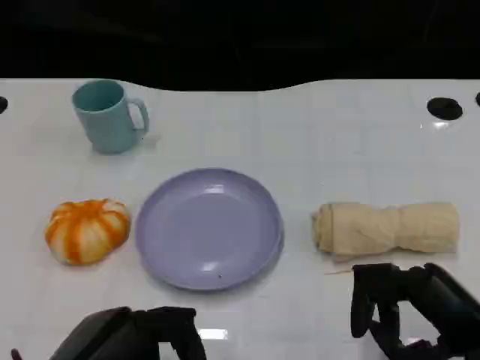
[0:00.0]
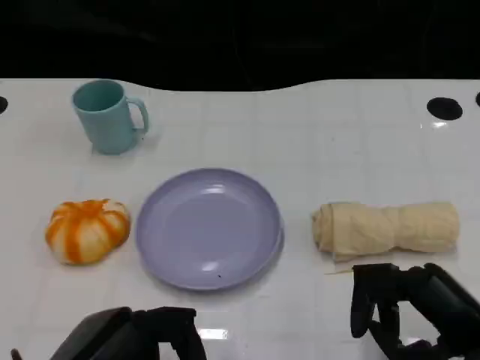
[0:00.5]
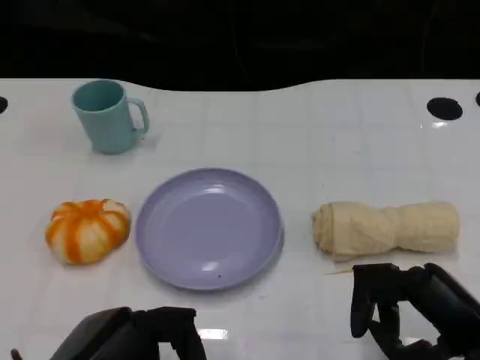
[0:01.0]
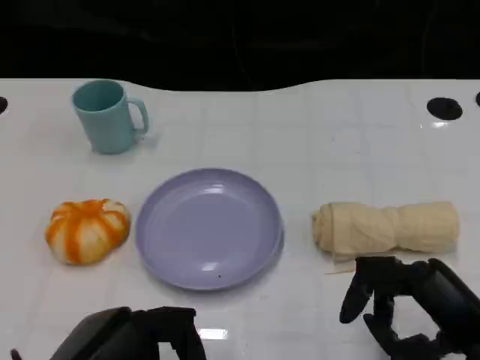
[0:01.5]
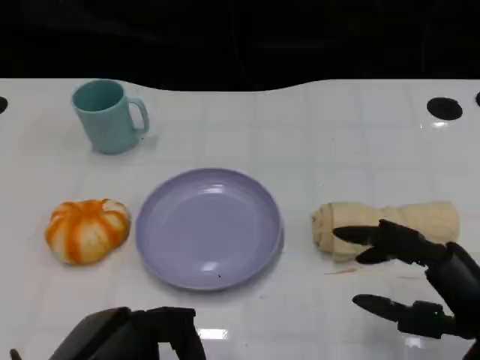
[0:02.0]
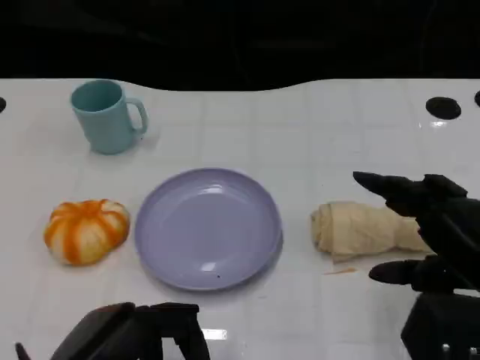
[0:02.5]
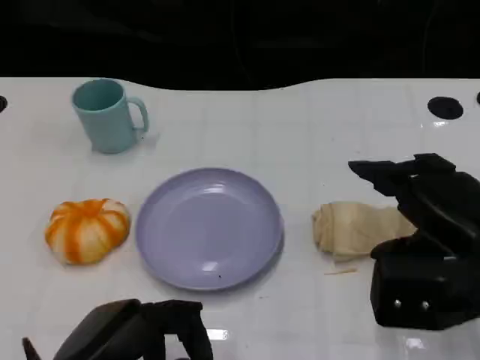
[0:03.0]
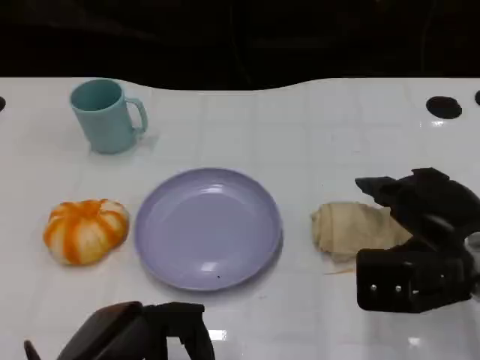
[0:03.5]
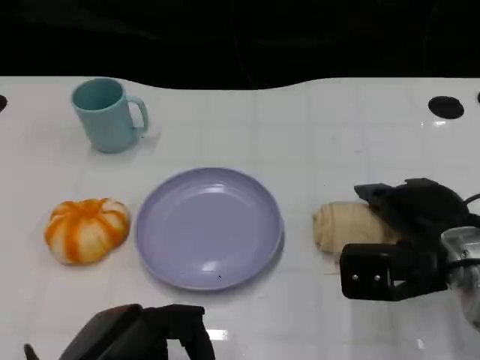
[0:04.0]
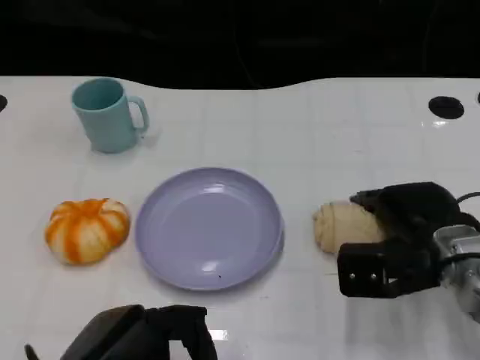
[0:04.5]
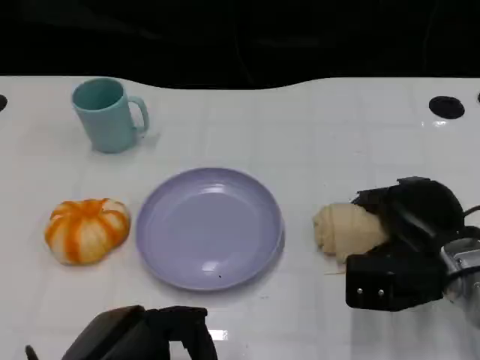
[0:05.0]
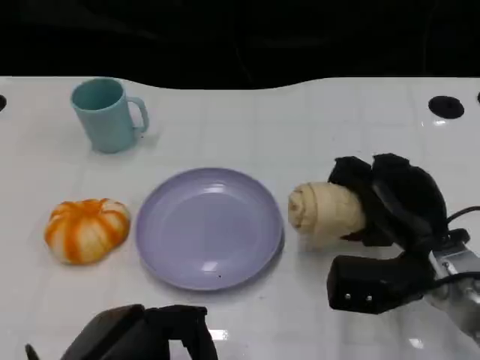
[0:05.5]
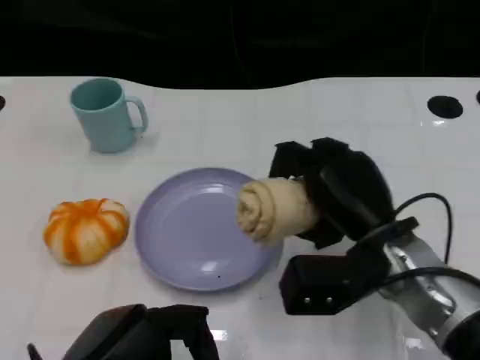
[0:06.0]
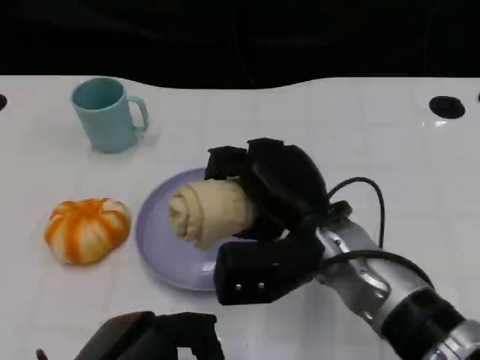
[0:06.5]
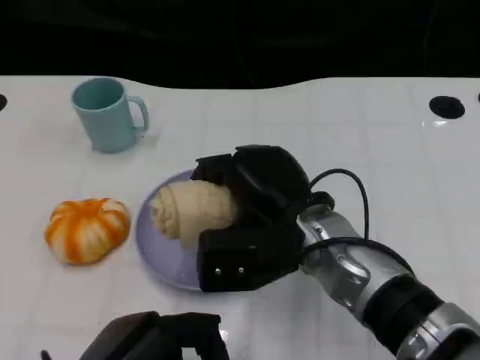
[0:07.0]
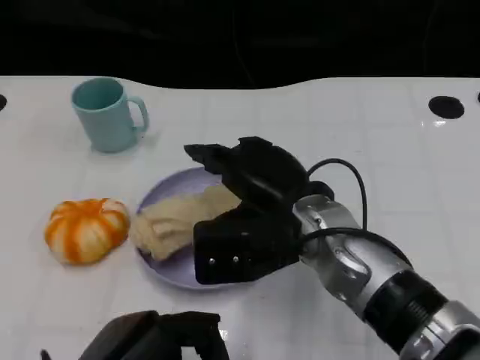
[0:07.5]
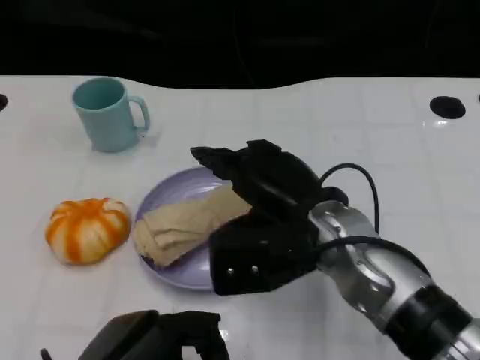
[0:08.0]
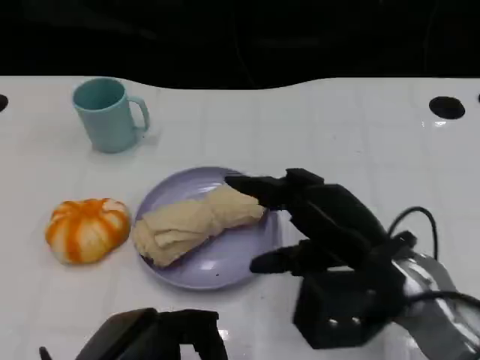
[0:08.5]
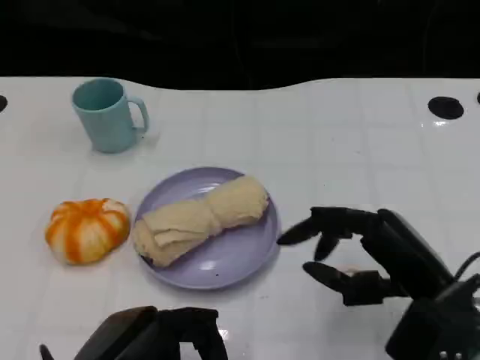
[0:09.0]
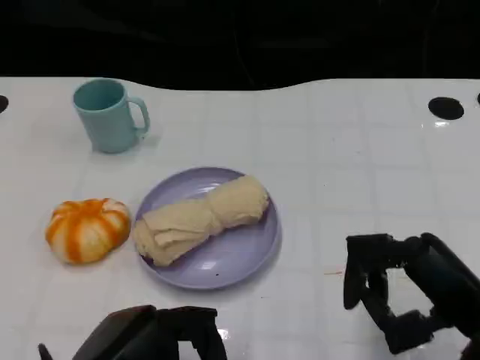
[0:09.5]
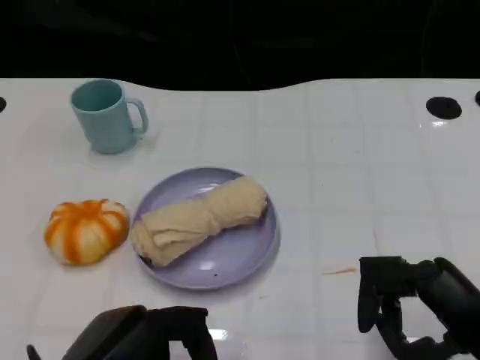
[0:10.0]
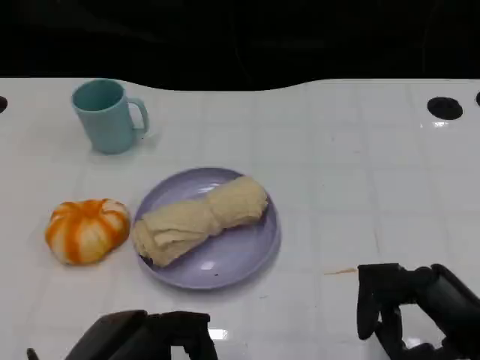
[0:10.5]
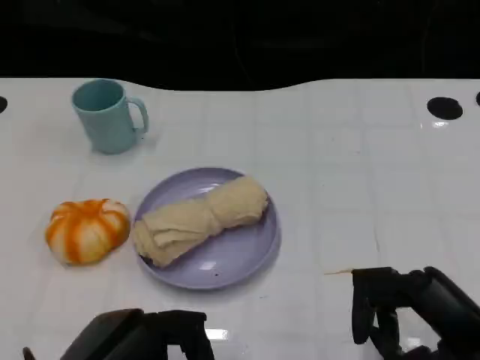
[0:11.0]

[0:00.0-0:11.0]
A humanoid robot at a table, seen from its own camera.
Task of the whole recording: Grasp the towel on the left side of the plate with the left hand and place it into the plate.
0.0 to 2.0 s: There are only small adjustments of the hands.
2.0 to 3.5 s: The right hand shifts approximately 10 cm forward.
3.5 to 5.5 s: The right hand shifts by some 5 cm.
5.5 to 7.5 s: The right hand moves to the left and upward, about 15 cm.
7.5 to 9.0 s: The right hand goes some 15 cm to the right and backward.
9.0 to 11.0 s: The right hand shifts approximately 5 cm backward.

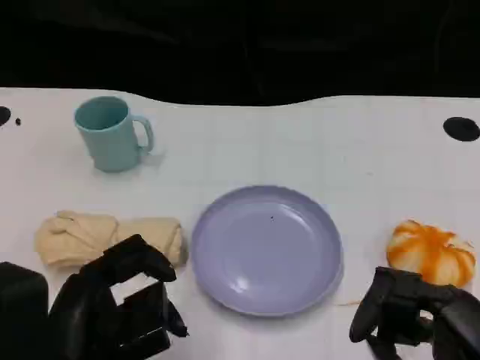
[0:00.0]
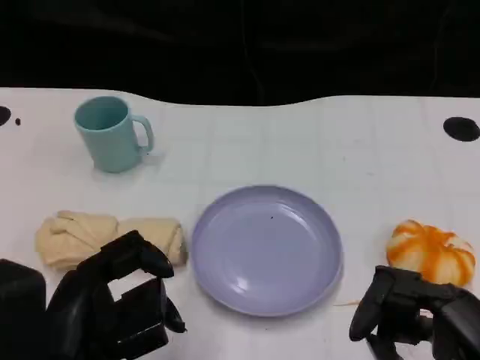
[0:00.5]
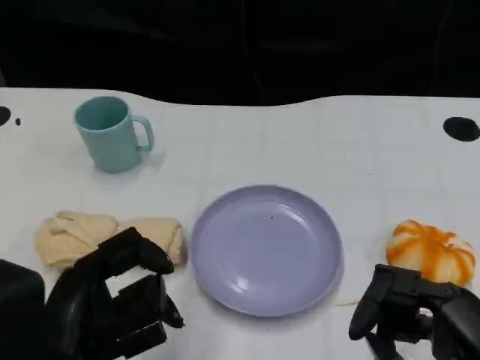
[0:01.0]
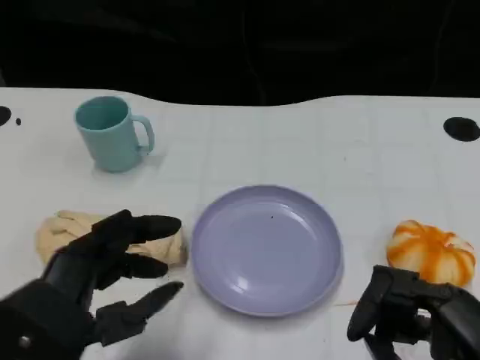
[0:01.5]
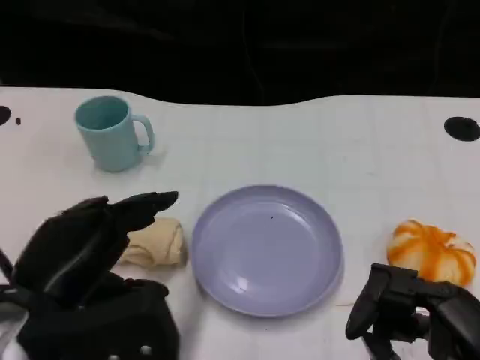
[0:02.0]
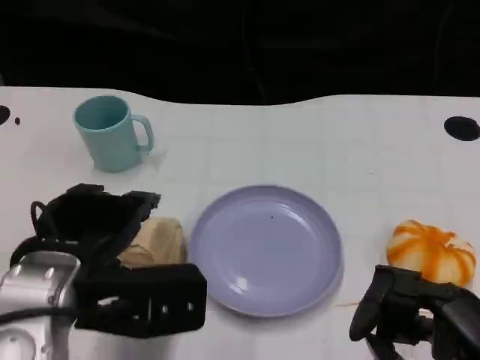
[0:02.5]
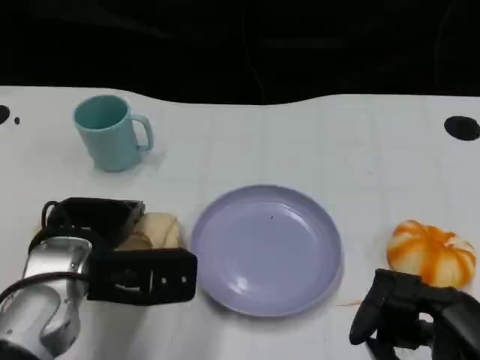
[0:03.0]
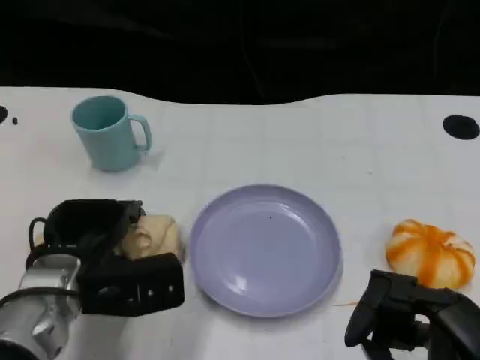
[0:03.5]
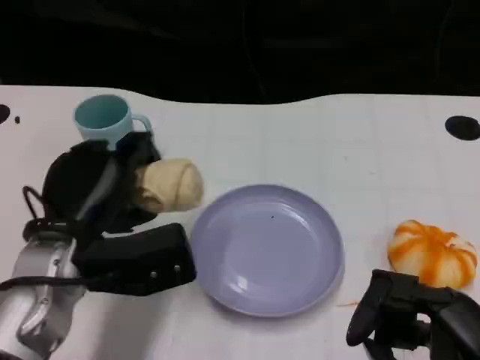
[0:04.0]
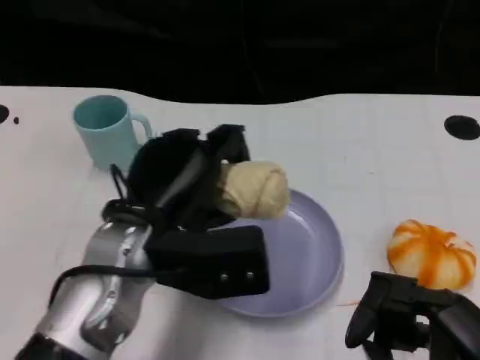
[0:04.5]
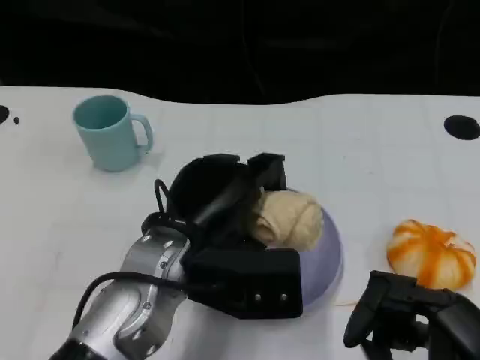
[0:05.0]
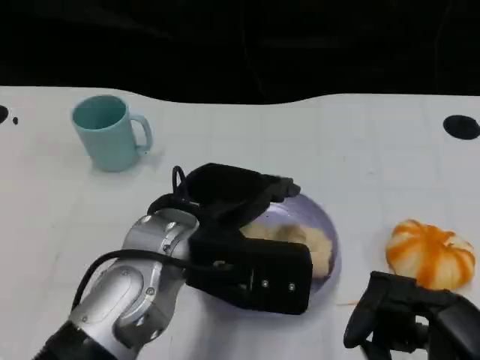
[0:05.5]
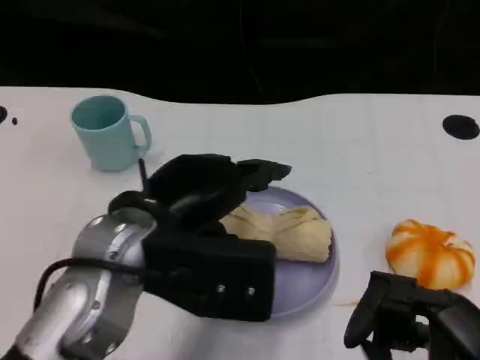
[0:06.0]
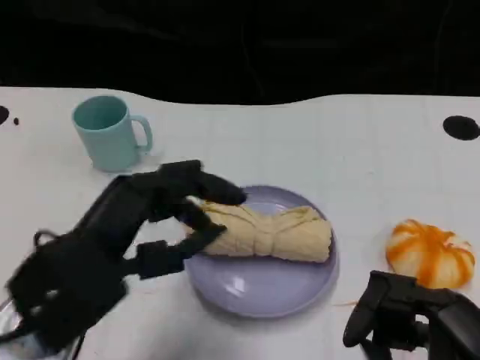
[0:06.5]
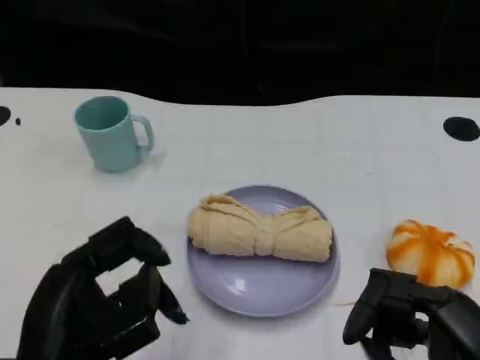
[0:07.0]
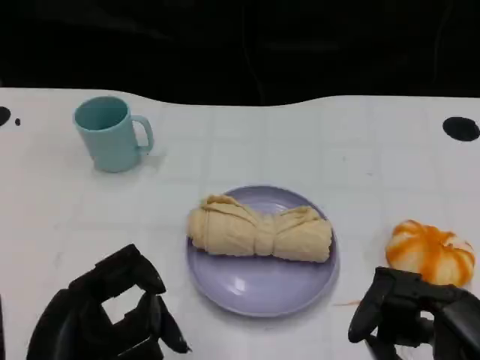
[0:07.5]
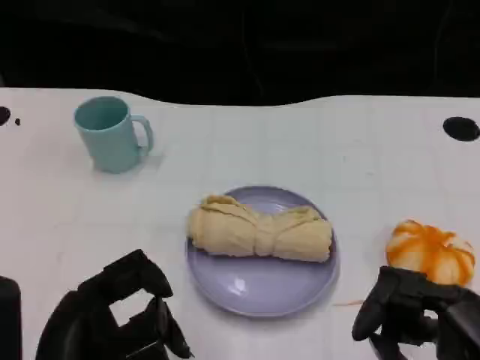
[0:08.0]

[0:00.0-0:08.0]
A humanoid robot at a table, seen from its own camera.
Task of the whole recording: Grasp the towel on the left side of the plate with the left hand and place it into the plate.
0.0 to 2.0 s: The left hand ends up roughly 5 cm from where it was.
2.0 to 4.0 s: The left hand travels forward by approximately 10 cm.
4.0 to 6.0 s: The left hand heads upward, covering about 5 cm.
6.0 to 8.0 s: The left hand heads backward and to the left, covering roughly 15 cm.

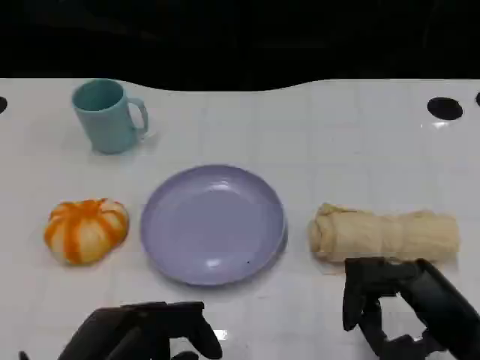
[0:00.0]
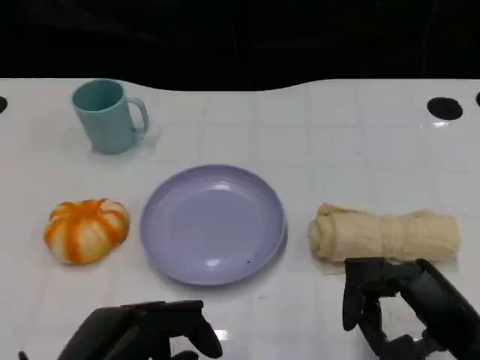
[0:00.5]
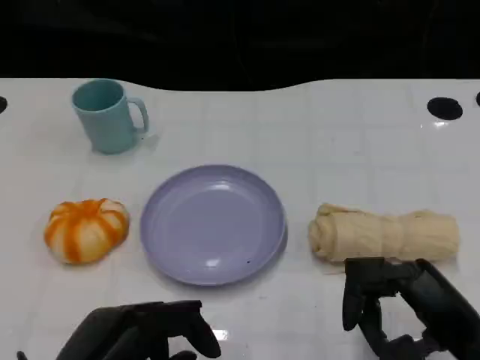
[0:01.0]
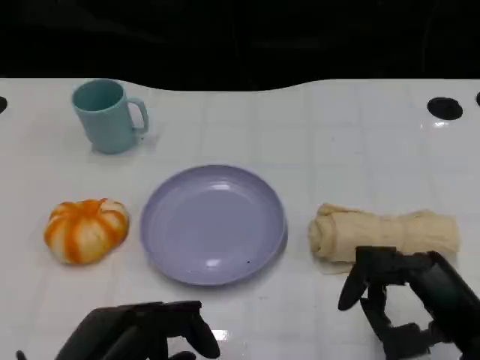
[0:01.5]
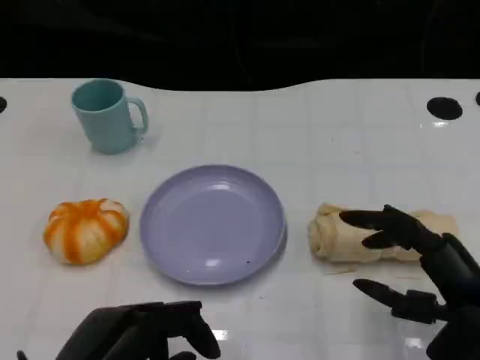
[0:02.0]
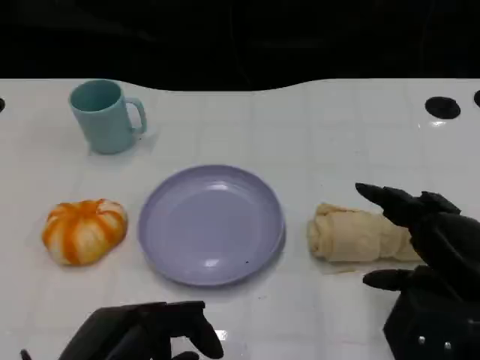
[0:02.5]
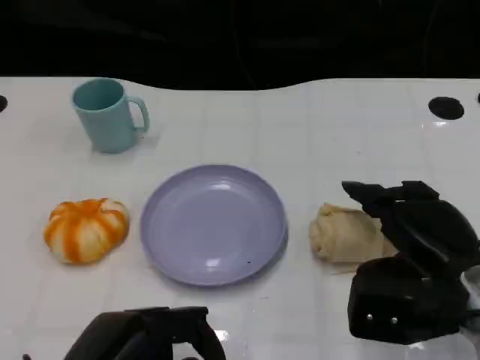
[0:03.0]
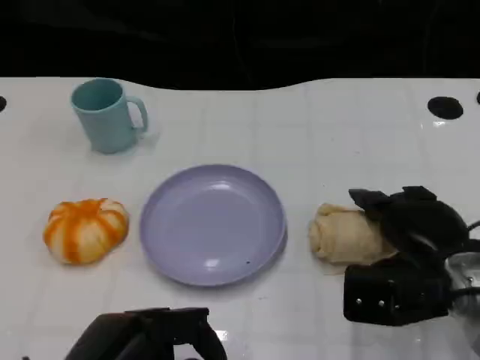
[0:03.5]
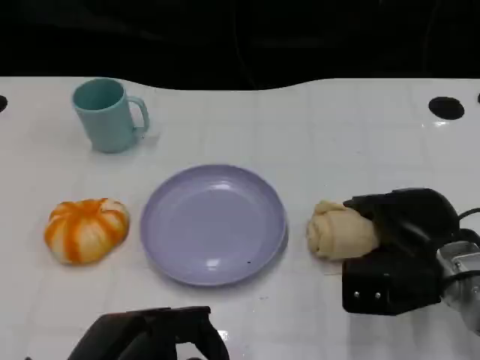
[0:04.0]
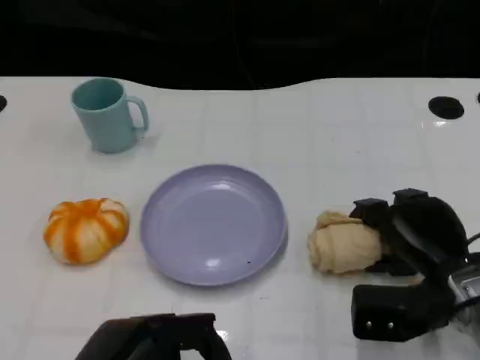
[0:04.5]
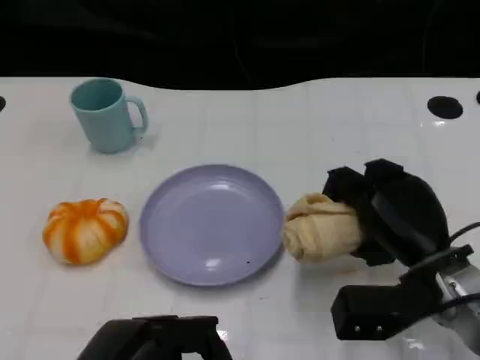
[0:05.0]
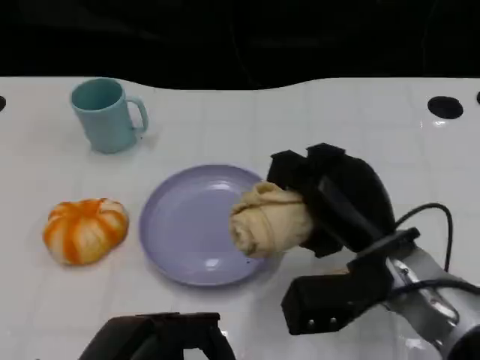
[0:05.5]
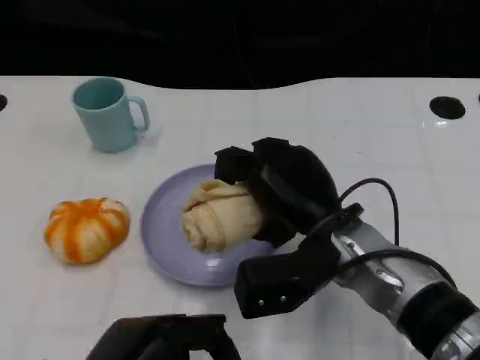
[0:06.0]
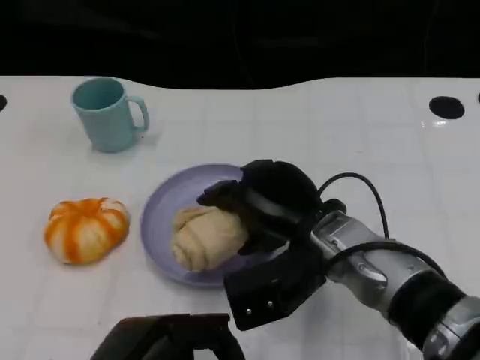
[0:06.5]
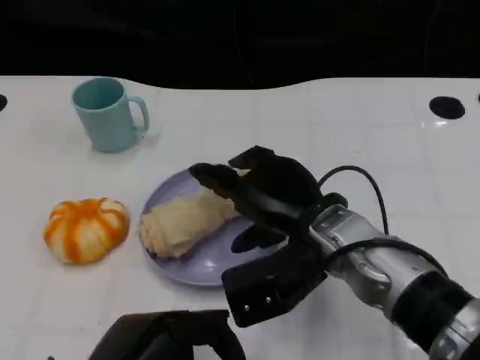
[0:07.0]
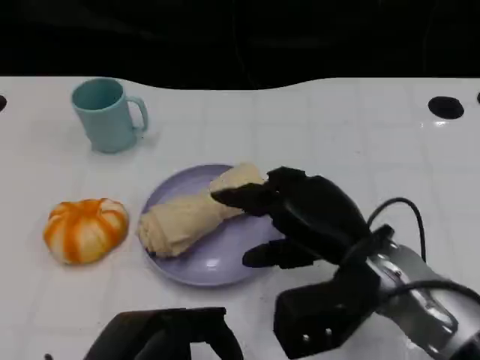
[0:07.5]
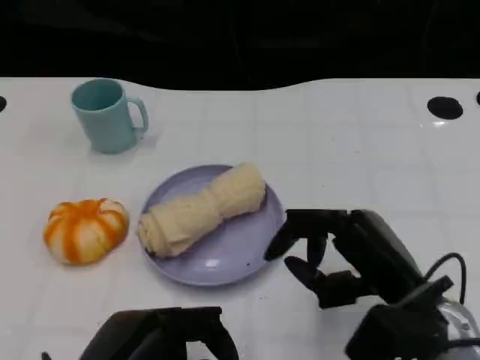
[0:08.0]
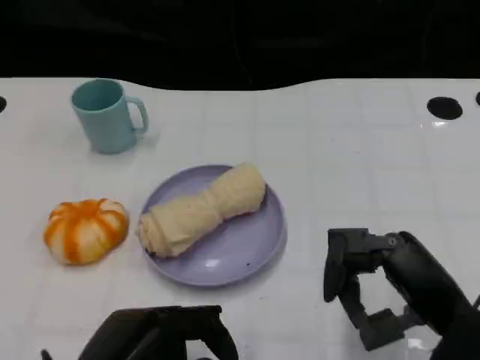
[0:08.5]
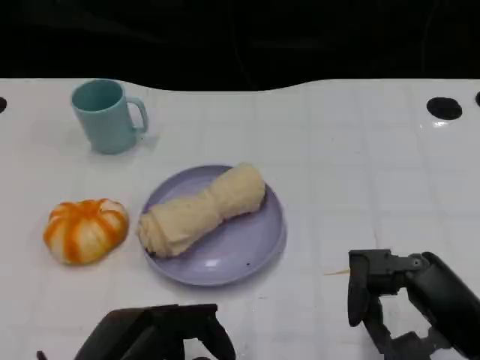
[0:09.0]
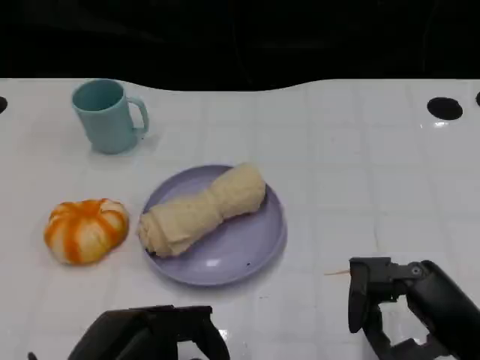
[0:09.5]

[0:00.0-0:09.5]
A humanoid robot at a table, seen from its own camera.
Task of the whole recording: Grasp the towel on the left side of the plate with the left hand and place it into the plate.
0.0 to 2.0 s: There are only small adjustments of the hands.
2.0 to 4.0 s: The right hand heads forward, covering some 10 cm.
4.0 to 5.5 s: The right hand goes roughly 5 cm to the left.
7.5 to 9.5 s: The right hand heads to the right and backward, covering approximately 15 cm.
